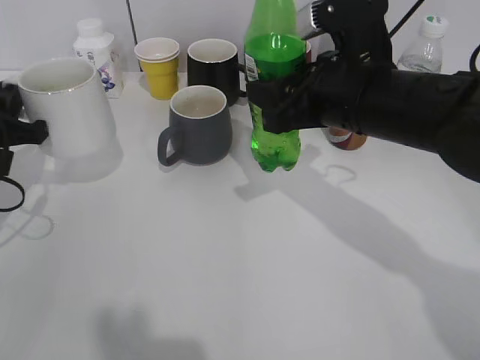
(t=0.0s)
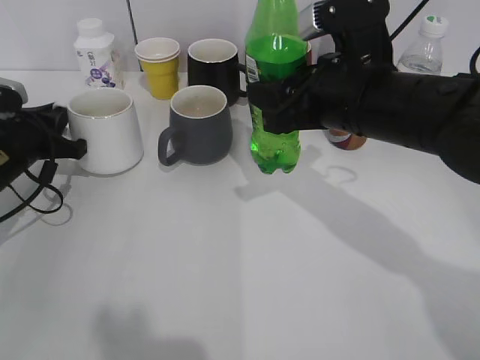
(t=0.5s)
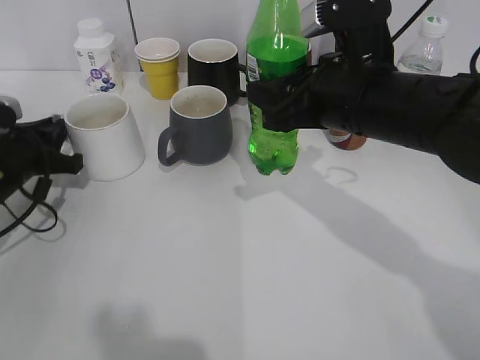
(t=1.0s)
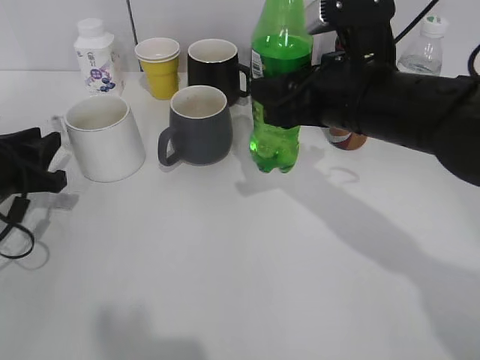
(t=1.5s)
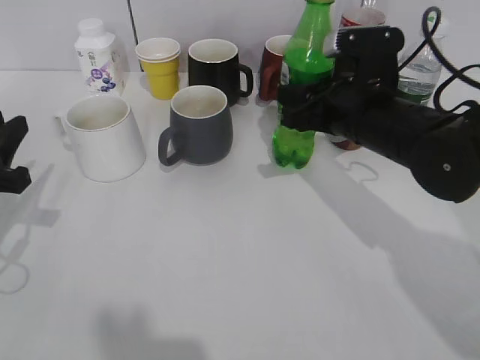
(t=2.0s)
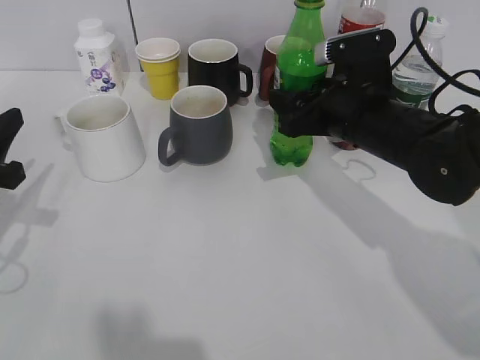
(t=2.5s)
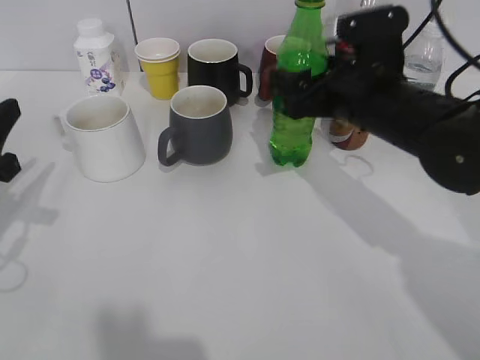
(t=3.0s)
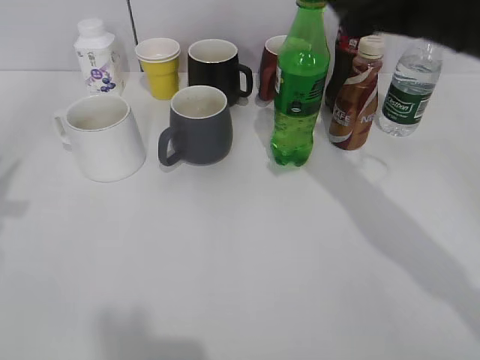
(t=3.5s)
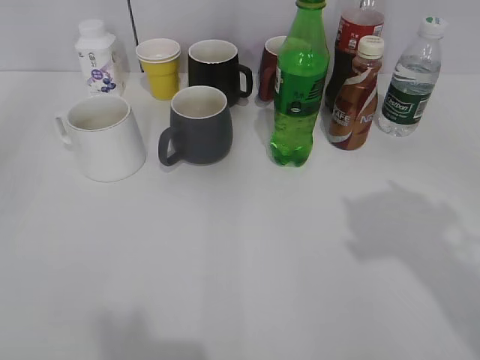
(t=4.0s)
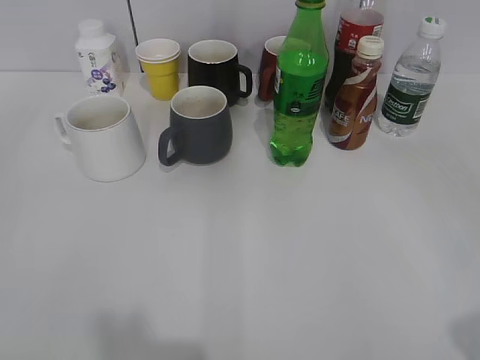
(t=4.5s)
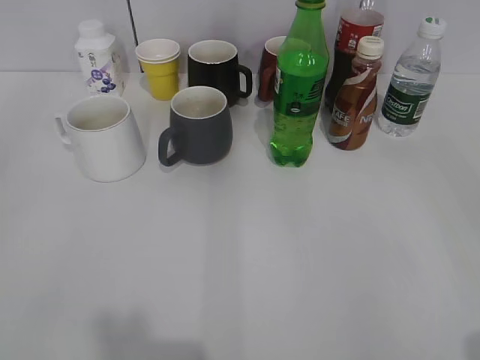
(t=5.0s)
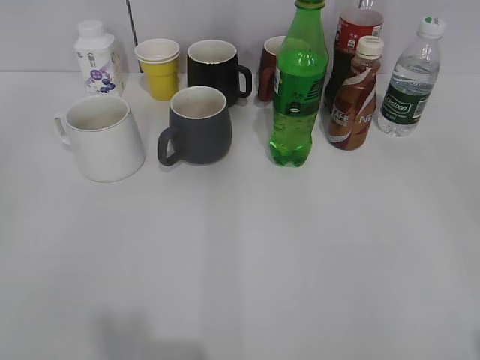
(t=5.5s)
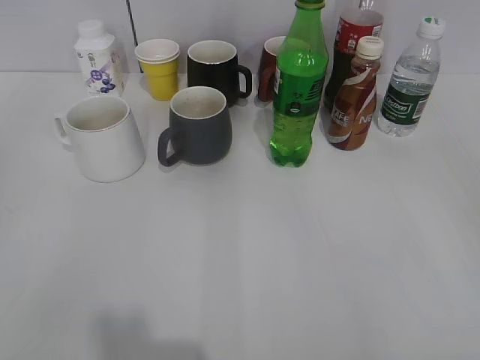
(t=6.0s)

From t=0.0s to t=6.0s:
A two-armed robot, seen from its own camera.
Step, from t=0.0s to t=1.0s: Place the white cup on the table with left gripper.
Step, from t=1.5s to t=3.0s: Place the sprite bottle on the table with right gripper.
From t=0.0s to t=2.0s: The left gripper heads backward, covering some 5 cm, and opens up. Meanwhile the right gripper moves downward, roughly 5 cm.
From t=2.0s to t=4.0s: The left gripper is displaced backward and upward by roughly 25 cm, and opens up, while the right gripper is displaced upward, backward and to the right by about 30 cm, and opens up.
